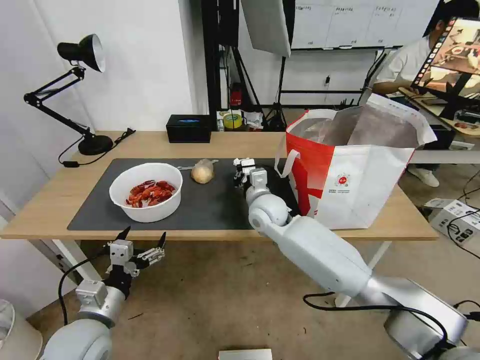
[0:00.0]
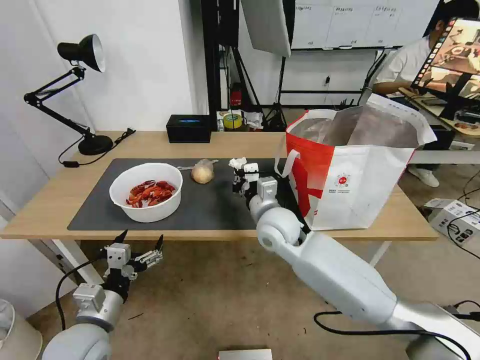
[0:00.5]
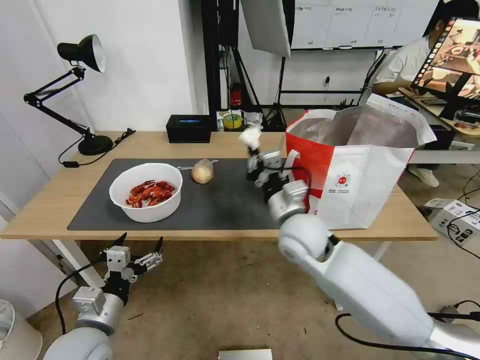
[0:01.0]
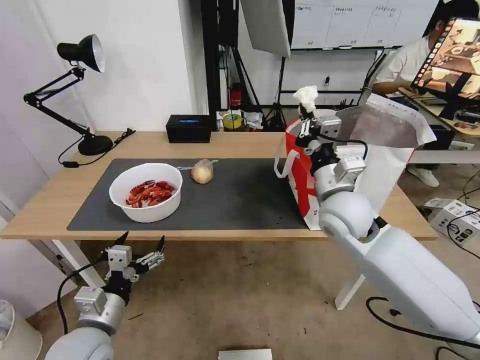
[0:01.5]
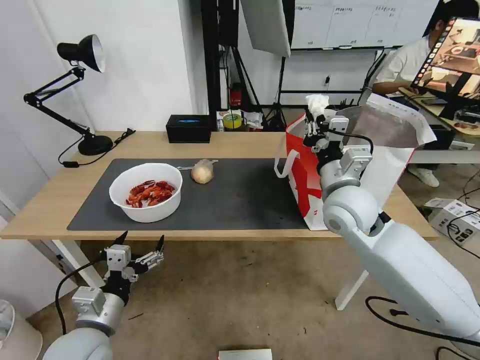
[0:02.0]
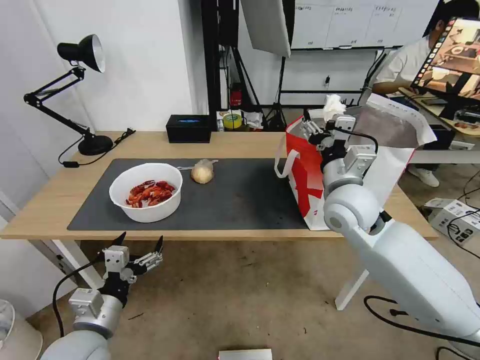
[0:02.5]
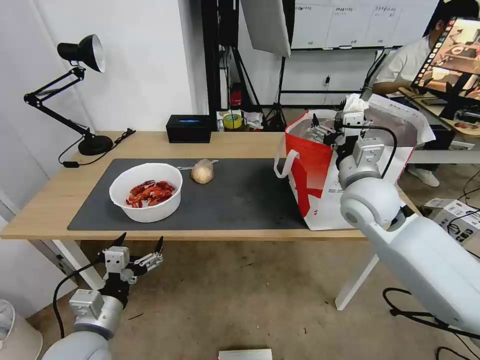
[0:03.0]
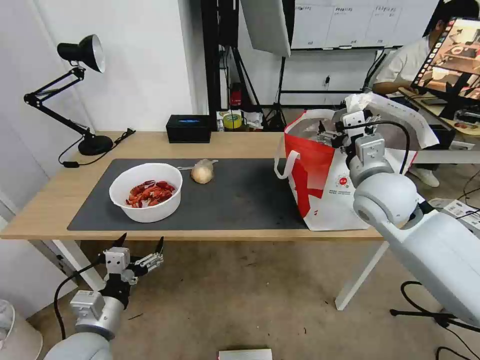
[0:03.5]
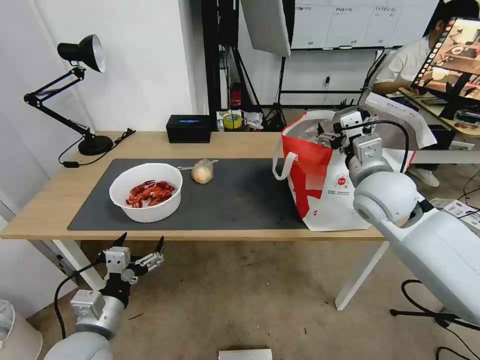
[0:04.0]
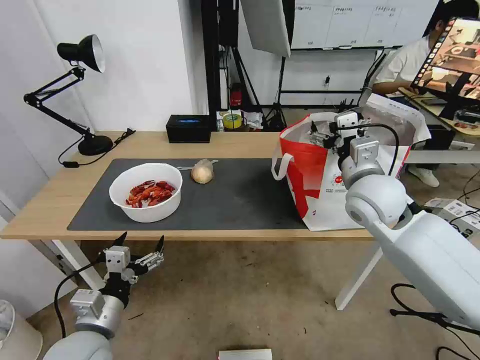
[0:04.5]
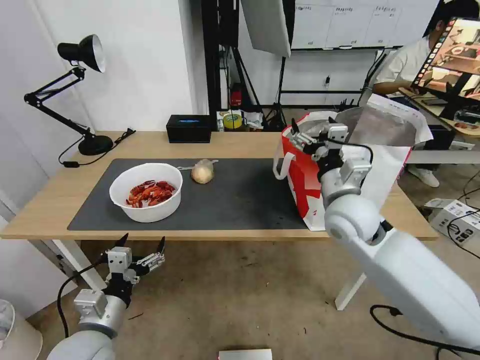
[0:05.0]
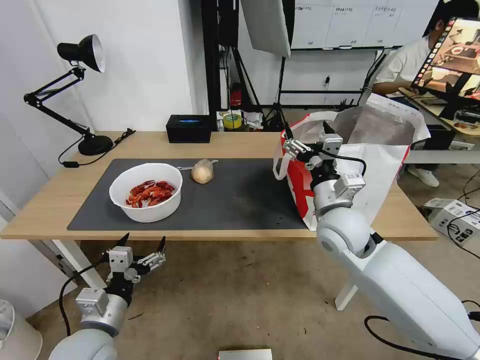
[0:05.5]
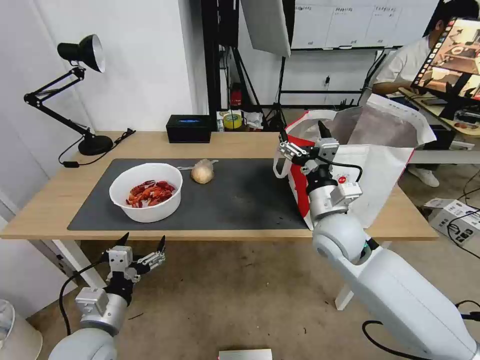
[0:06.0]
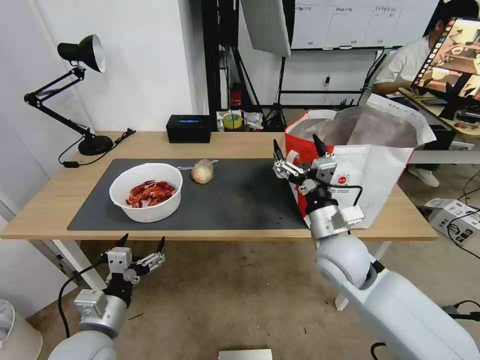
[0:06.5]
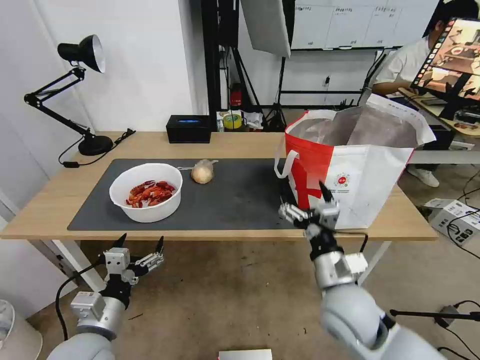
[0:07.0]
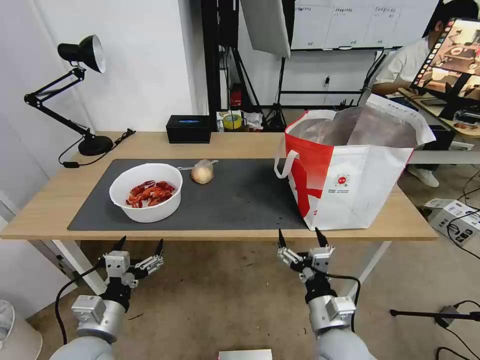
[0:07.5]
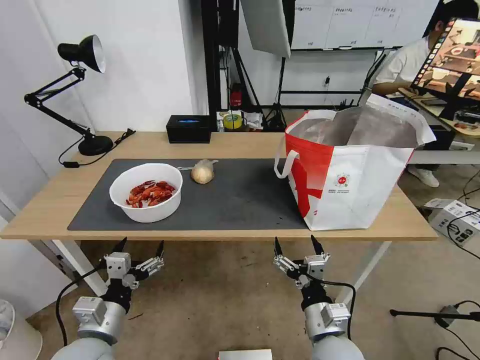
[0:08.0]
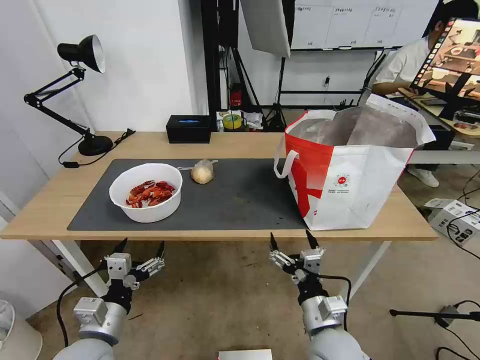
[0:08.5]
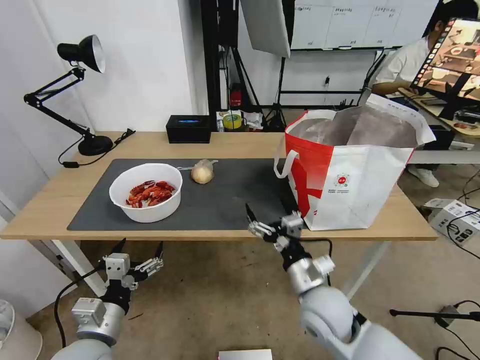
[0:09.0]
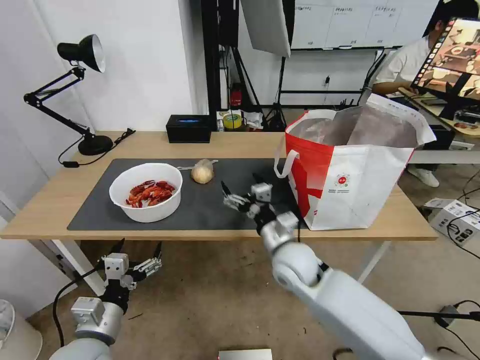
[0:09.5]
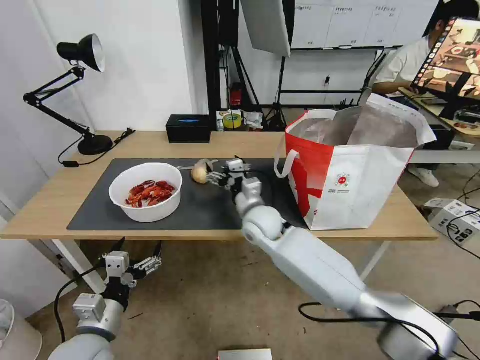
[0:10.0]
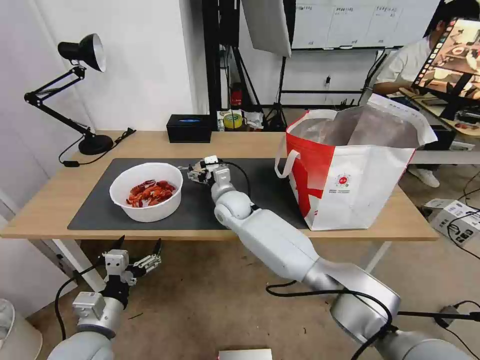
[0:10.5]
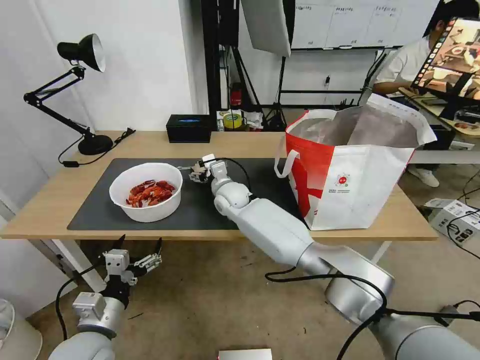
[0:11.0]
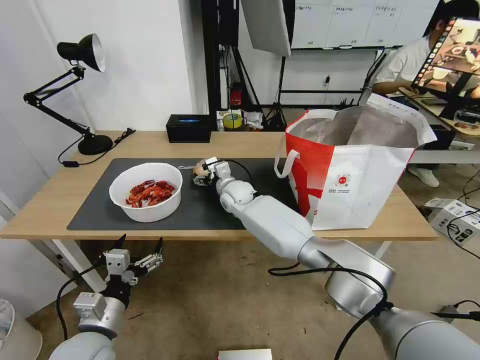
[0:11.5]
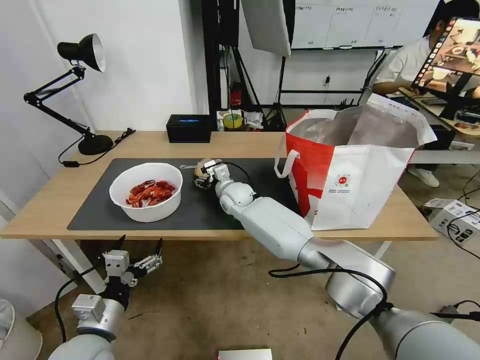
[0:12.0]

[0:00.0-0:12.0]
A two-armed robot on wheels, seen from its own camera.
Task of the whole recording: Pick up the trash from the table and place it into the takeout bag.
0:00.0 to 0:02.0: The right gripper is displaced to the right, upward and backward by roughly 20 cm.
0:02.0 to 0:04.0: The right gripper heads to the right, covering approximately 5 cm, and opens.
0:04.0 to 0:06.0: The right gripper shifts some 10 cm downward and to the left.
0:06.0 to 0:08.0: The right gripper moves backward and downward, some 25 cm.
0:08.0 to 0:10.0: The right gripper goes approximately 30 cm forward and to the left.
0:10.0 to 0:12.0: The right gripper shifts roughly 10 cm forward.

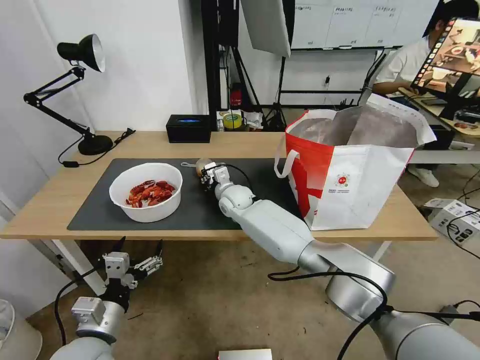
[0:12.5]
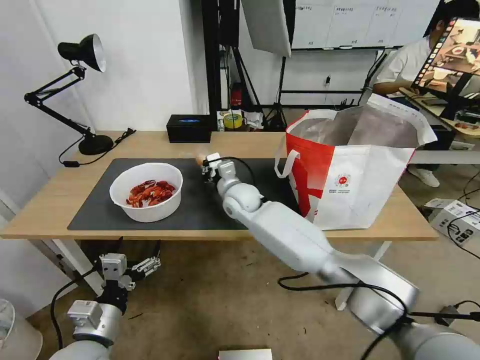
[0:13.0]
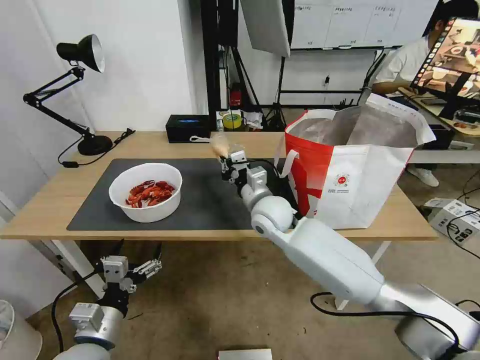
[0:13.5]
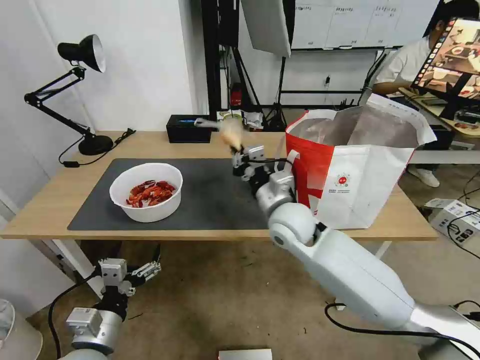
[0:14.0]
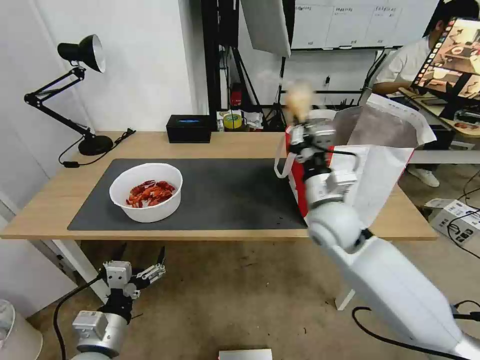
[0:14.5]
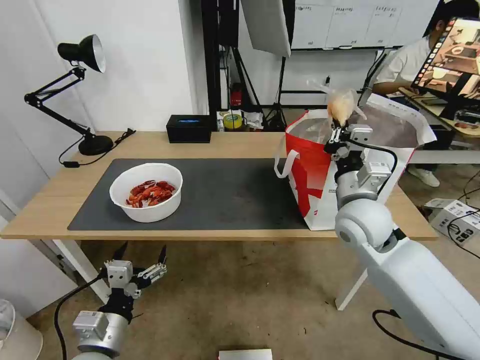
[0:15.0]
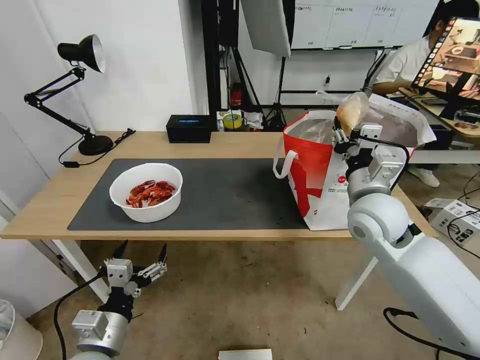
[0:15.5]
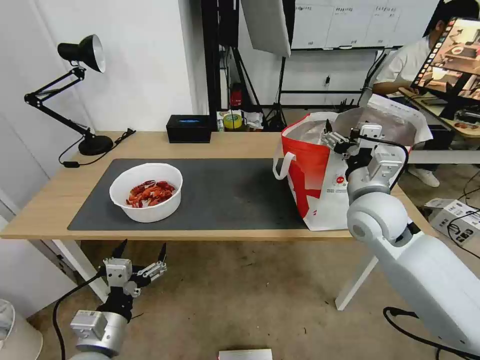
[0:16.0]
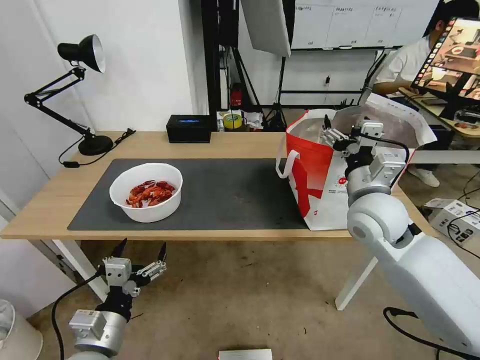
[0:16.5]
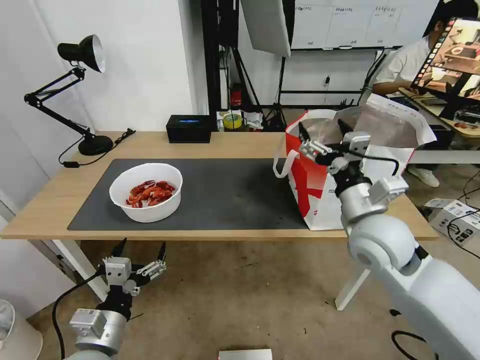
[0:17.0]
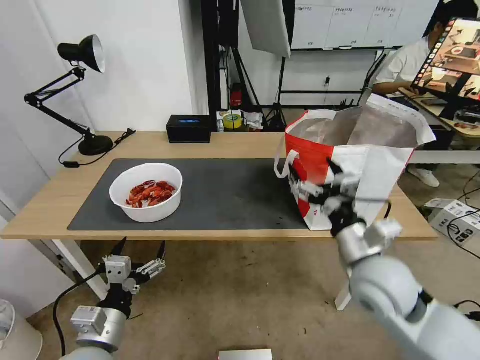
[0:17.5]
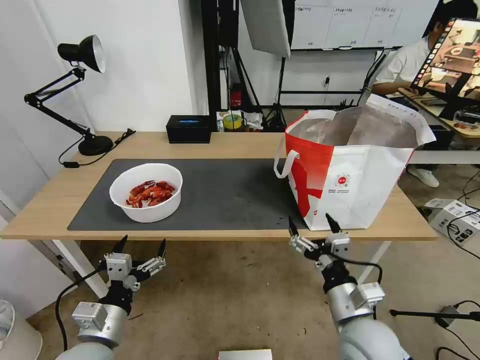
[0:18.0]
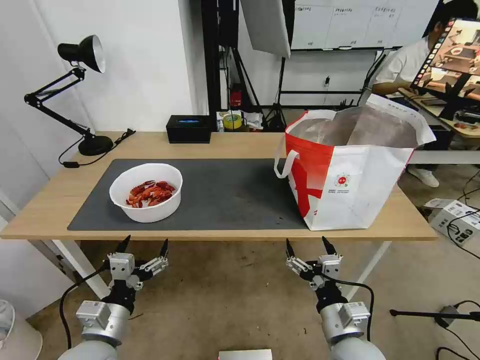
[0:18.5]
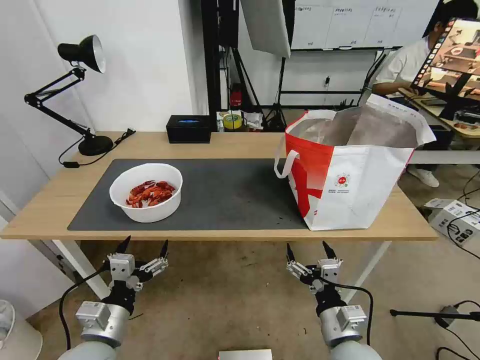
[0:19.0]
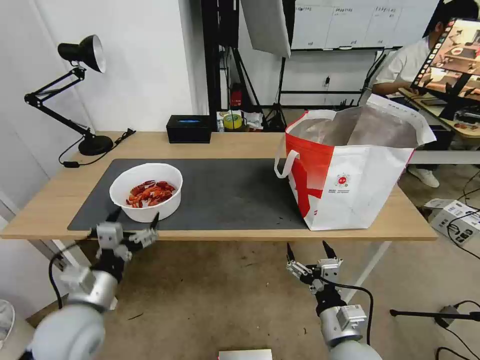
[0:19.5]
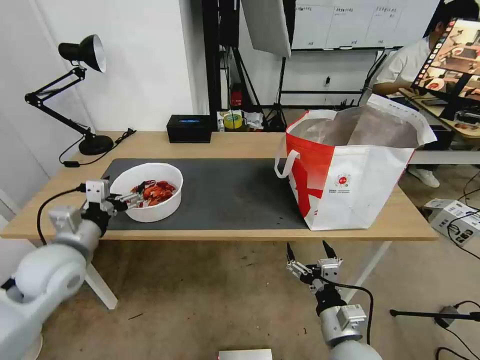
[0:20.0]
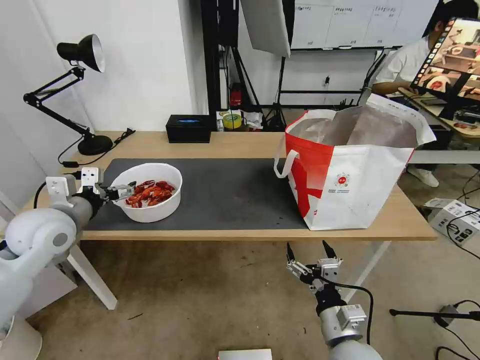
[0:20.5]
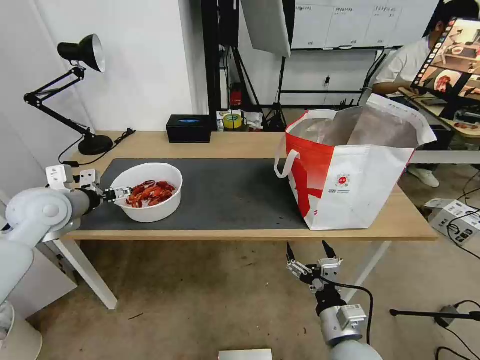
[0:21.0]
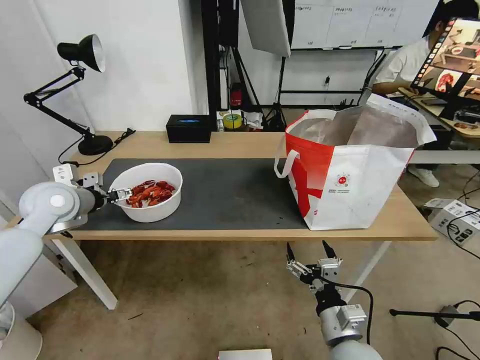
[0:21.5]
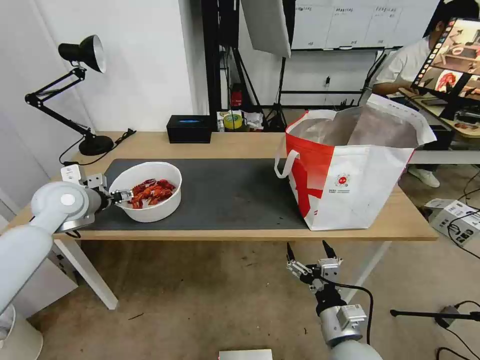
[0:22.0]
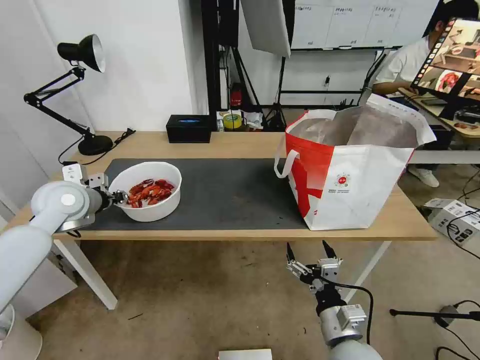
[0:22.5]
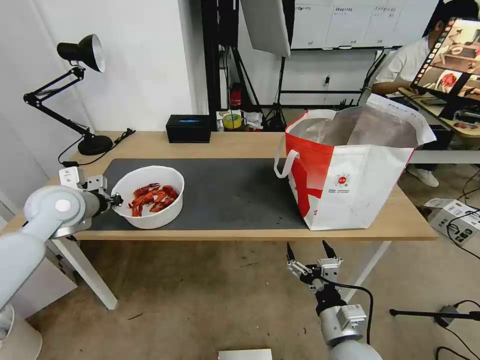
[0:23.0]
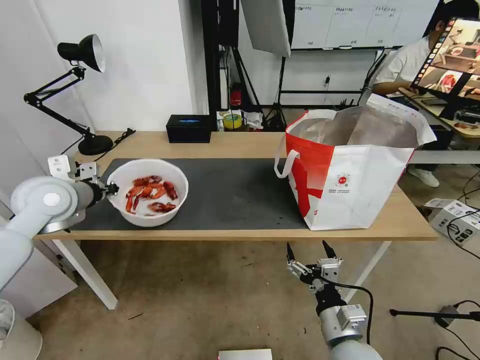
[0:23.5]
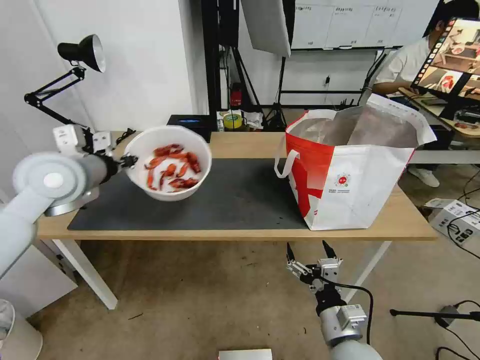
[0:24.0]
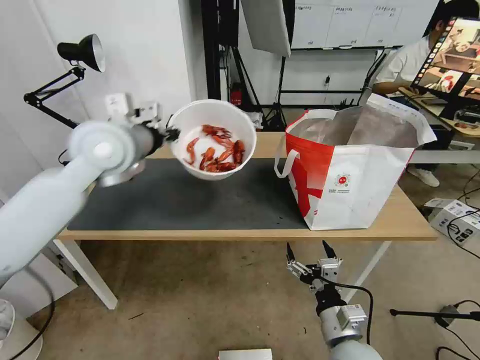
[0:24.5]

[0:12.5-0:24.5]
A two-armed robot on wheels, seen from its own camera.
Task of the whole recording: Pick up the trash from the table and place it into the takeout bag.
0:12.5 to 0:14.5: The right gripper moves to the right, backward and upward, roughly 30 cm.
0:14.5 to 0:16.5: The right gripper goes approximately 5 cm to the right, and opens.
0:16.5 to 0:18.5: The right gripper goes roughly 30 cm backward and downward.
0:18.5 to 0:20.5: The left gripper travels forward, upward and to the left by roughly 25 cm.
0:20.5 to 0:22.5: The left gripper is displaced forward by approximately 5 cm, and closes.
0:22.5 to 0:24.5: The left gripper travels to the right and upward by some 20 cm.

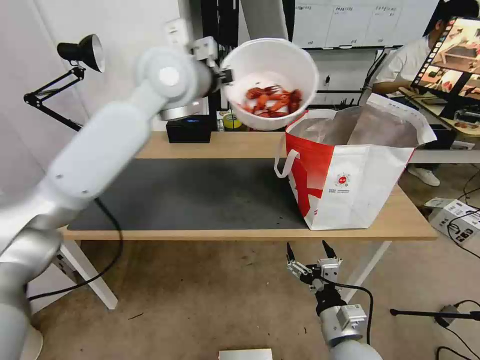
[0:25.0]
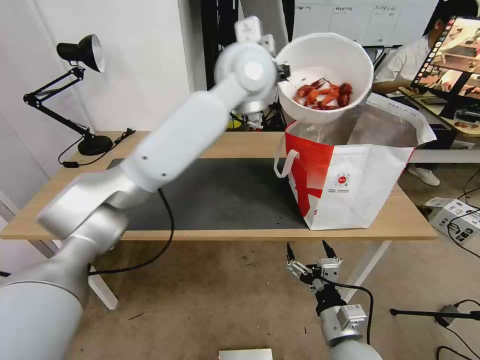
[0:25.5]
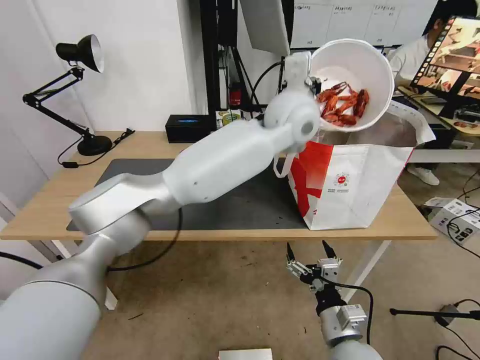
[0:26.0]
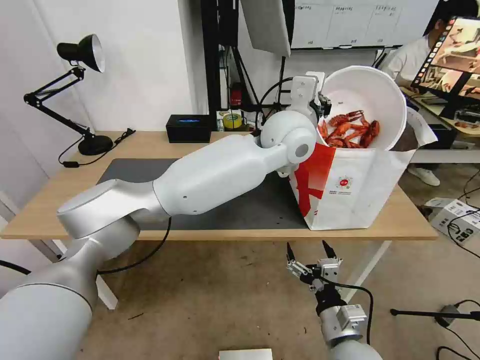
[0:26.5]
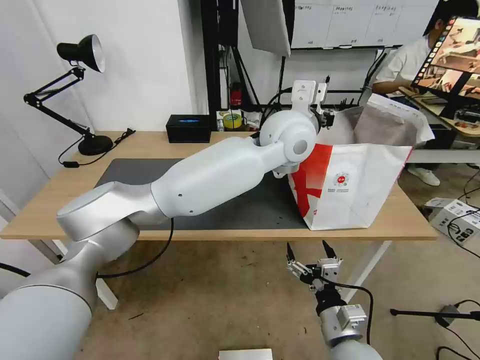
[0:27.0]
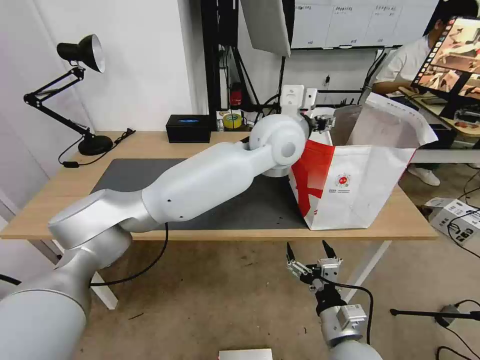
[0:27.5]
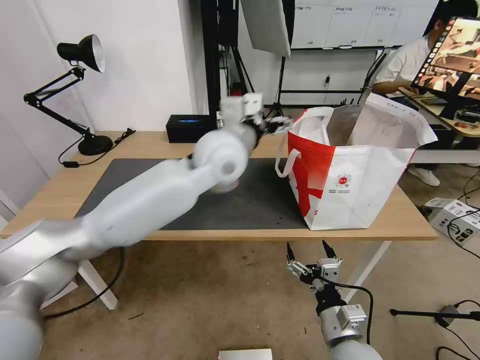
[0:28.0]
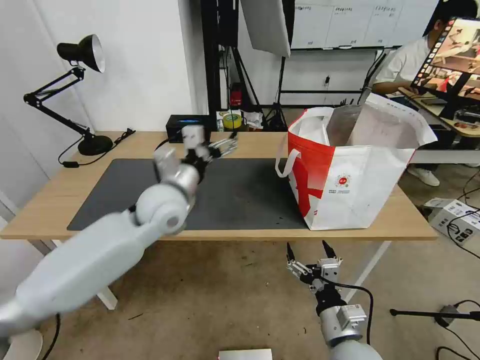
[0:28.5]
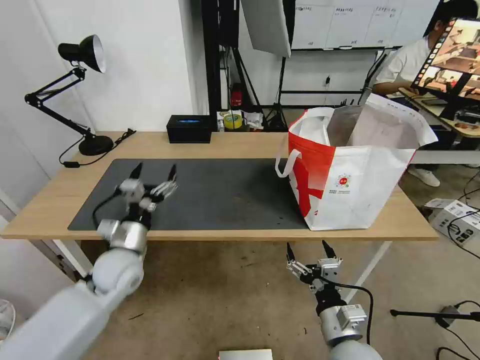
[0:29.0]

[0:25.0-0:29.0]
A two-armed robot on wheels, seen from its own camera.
Task of the whole recording: Pick up the trash from the table and place it into the takeout bag.
0:25.0 to 0:27.0: The left gripper is displaced to the right and downward by roughly 20 cm.
0:27.0 to 0:29.0: The left gripper shifts approximately 40 cm to the left and downward, and opens its fingers.
